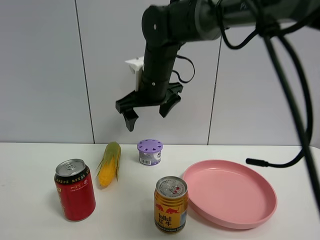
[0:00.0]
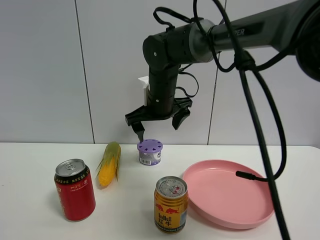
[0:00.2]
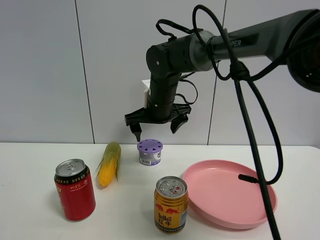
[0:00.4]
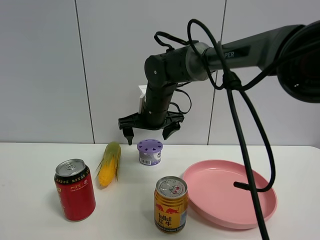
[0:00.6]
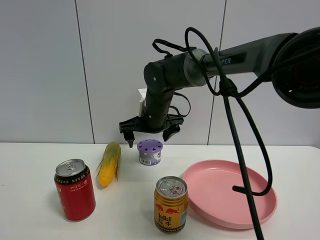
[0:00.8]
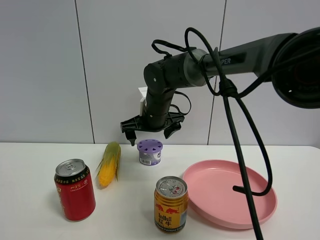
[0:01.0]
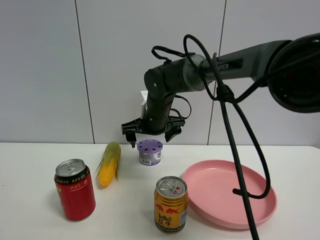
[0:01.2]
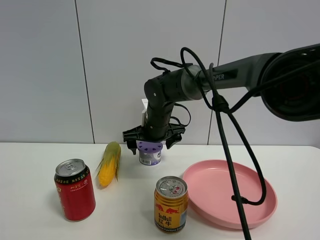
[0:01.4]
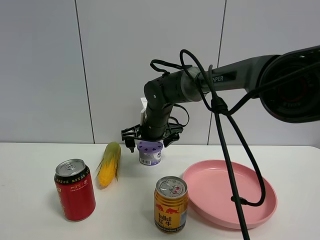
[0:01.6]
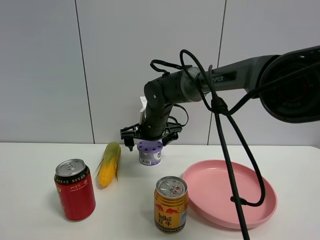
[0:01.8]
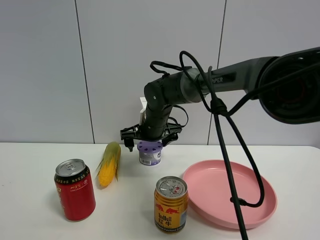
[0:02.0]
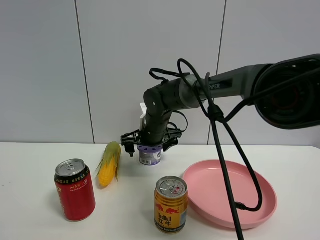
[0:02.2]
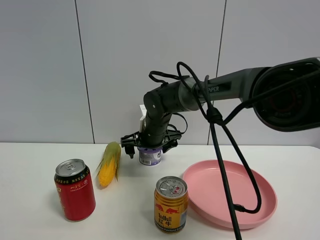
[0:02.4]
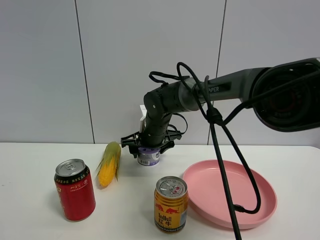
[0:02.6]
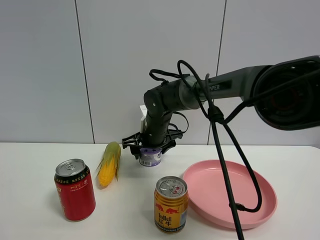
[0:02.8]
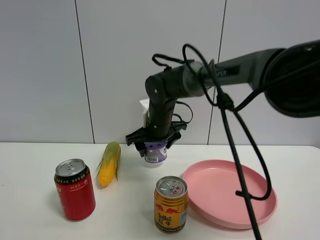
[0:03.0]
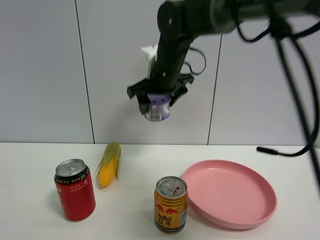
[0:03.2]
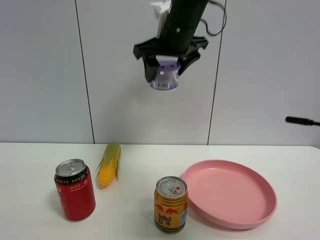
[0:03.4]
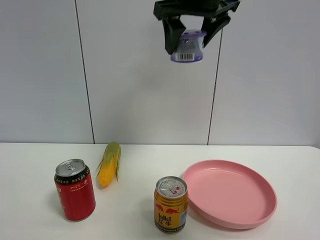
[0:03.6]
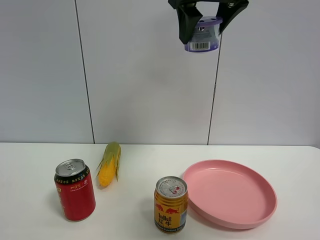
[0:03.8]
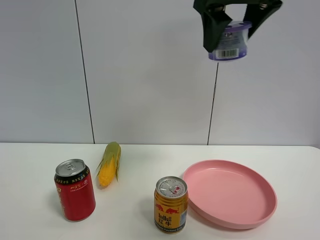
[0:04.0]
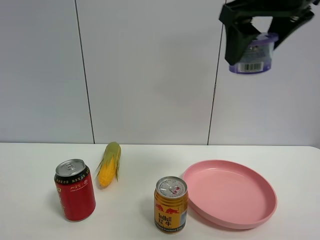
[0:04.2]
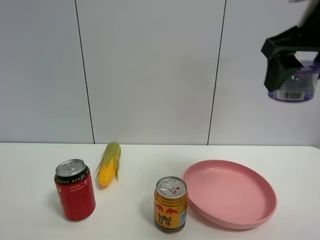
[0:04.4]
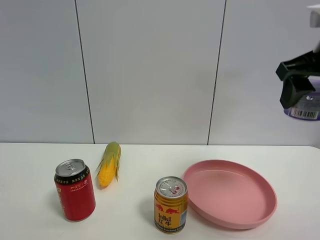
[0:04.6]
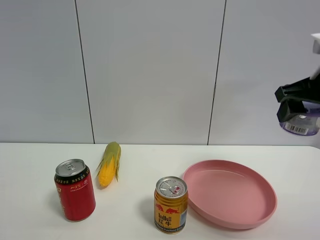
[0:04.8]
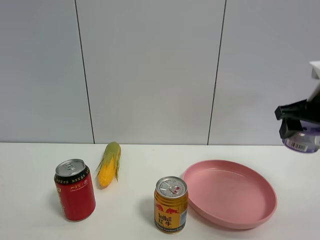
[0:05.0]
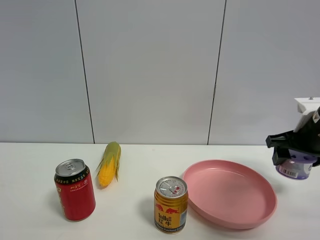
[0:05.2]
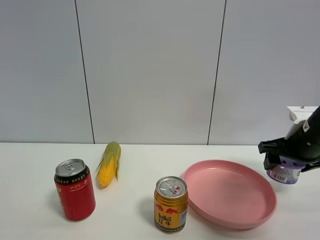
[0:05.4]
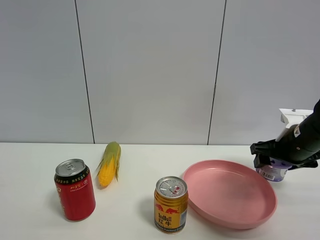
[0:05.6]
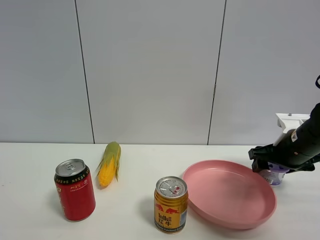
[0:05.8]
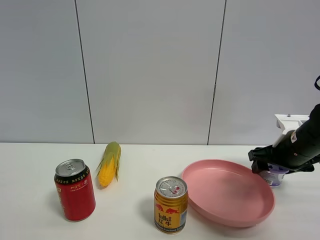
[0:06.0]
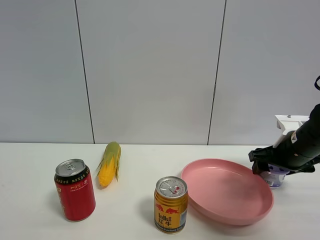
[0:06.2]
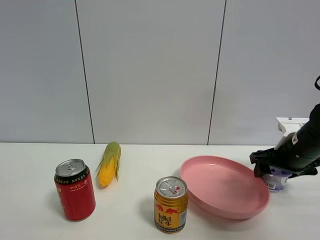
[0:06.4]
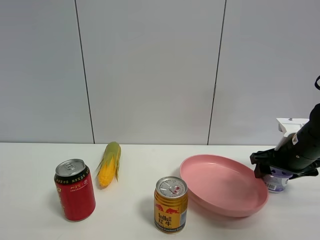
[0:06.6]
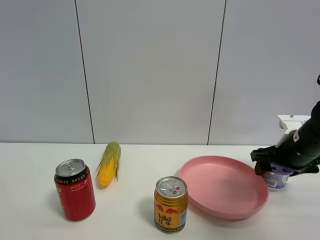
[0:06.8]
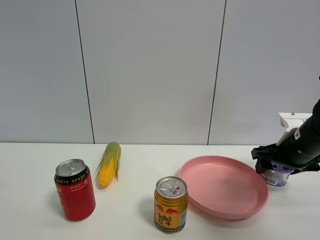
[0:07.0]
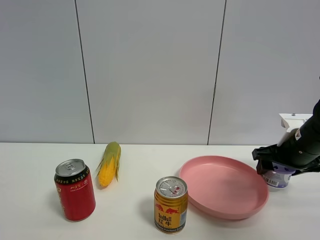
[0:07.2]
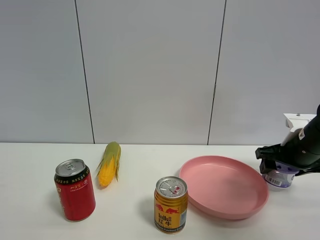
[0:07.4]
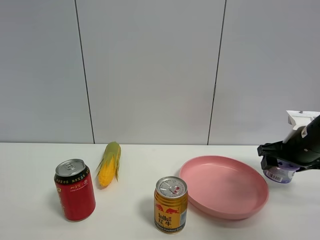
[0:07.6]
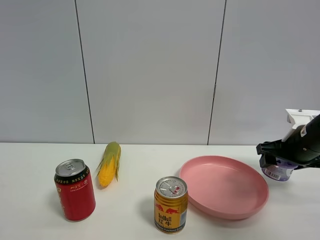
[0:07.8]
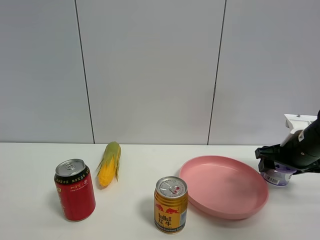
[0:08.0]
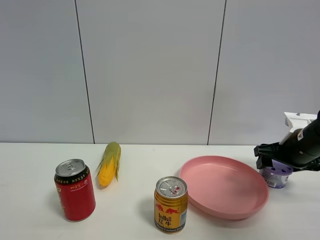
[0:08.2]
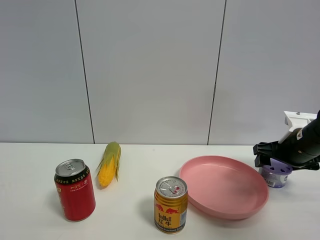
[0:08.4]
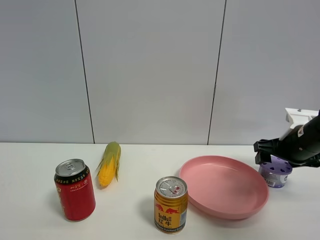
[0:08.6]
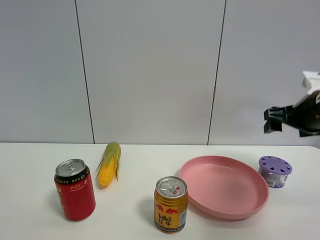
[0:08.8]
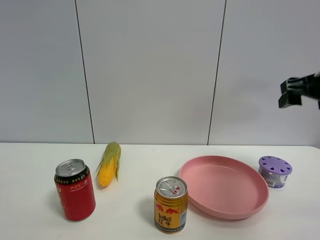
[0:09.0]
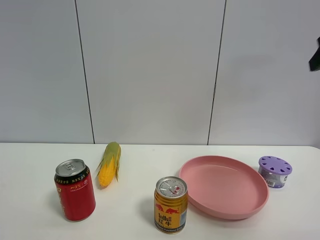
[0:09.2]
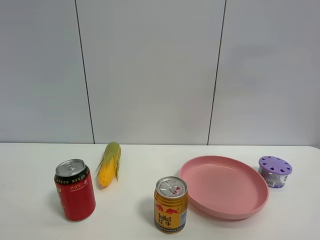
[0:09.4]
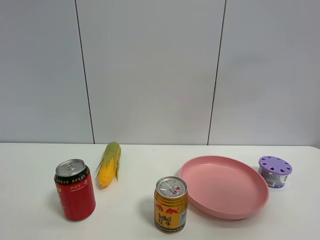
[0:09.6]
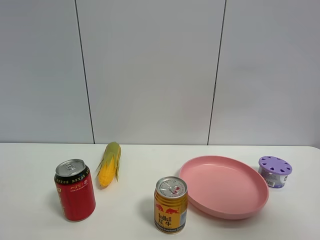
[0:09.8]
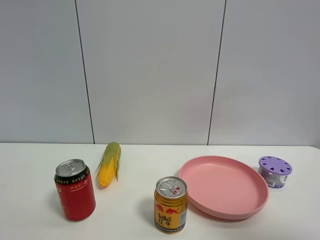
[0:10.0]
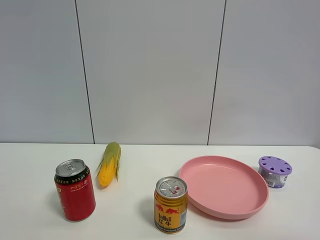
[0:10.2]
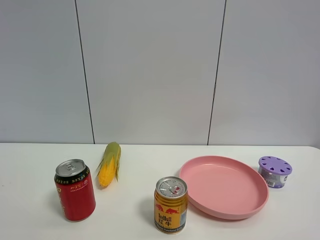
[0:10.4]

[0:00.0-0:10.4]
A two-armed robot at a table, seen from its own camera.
Task of the whole recording: the gripper move the object.
0:00.0 to 0:01.4: The right gripper shifts some 10 cm downward.
0:01.4 to 0:03.0: The right gripper closes.
0:03.0 to 0:04.4: The right gripper heads to the right, upward and backward, covering approximately 35 cm.
0:04.4 to 0:06.0: The right gripper moves downward and forward, roughly 25 cm.
0:06.0 to 0:07.4: There are only small adjustments of the grippers.
0:07.4 to 0:09.0: The right gripper goes approximately 15 cm upward.
0:09.0 to 0:10.4: The right gripper shifts about 30 cm backward.

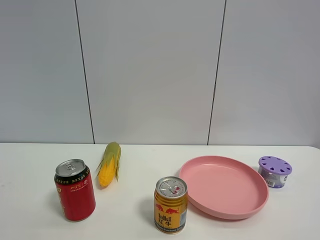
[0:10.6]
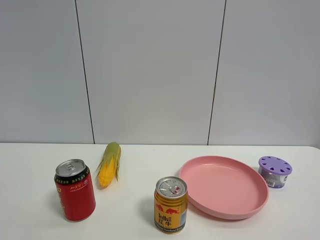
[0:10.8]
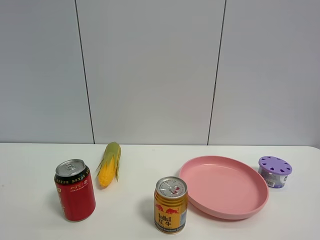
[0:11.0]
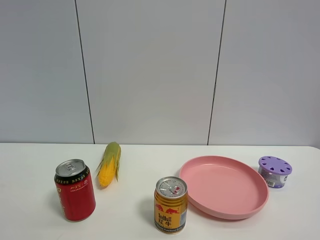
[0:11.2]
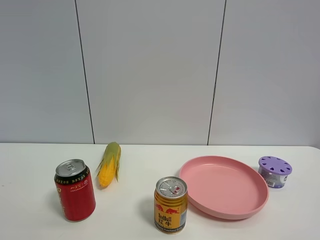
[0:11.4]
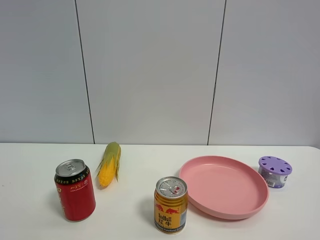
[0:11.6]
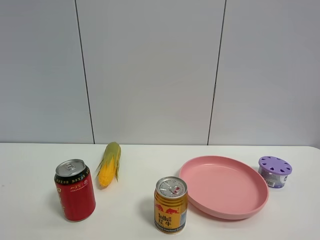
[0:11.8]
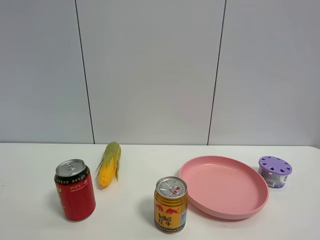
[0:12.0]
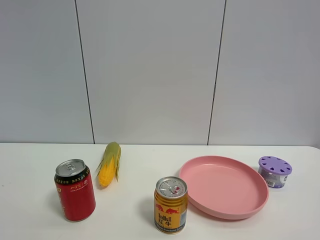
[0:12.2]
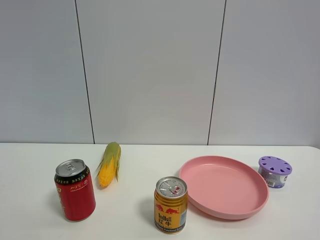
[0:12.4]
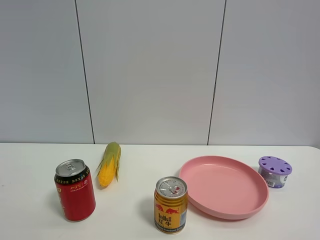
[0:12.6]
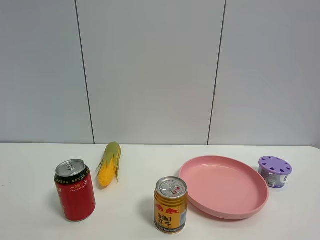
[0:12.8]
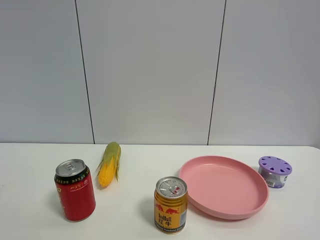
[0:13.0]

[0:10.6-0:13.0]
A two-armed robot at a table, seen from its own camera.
Task of the whole recording: the gripper move the object.
0:11.8 to 0:13.0: Both grippers stay put.

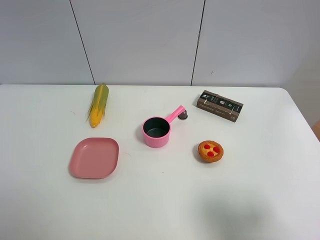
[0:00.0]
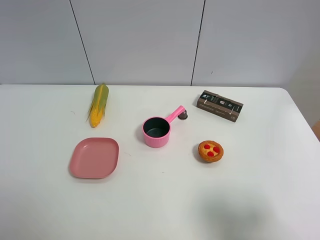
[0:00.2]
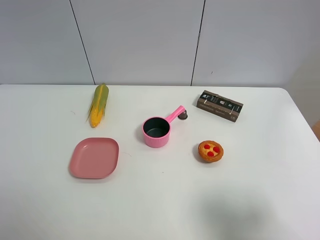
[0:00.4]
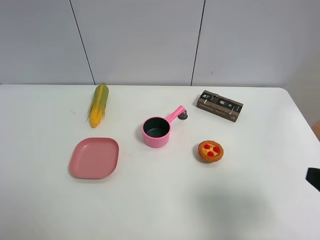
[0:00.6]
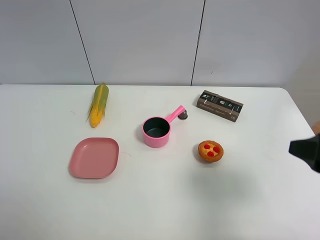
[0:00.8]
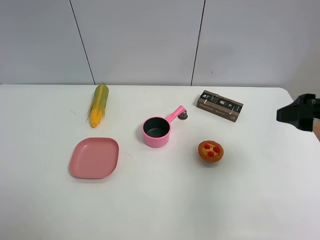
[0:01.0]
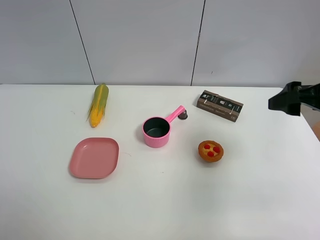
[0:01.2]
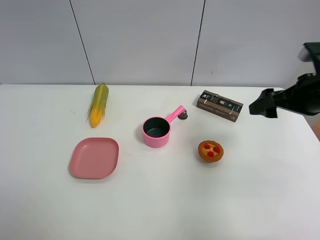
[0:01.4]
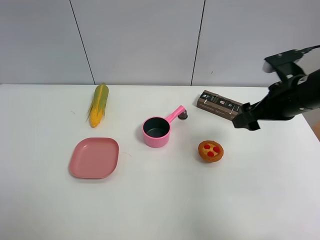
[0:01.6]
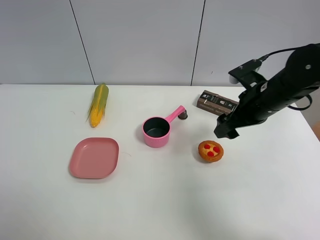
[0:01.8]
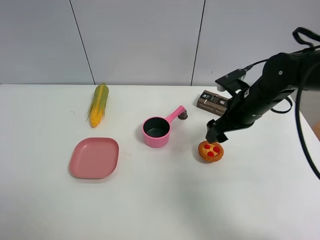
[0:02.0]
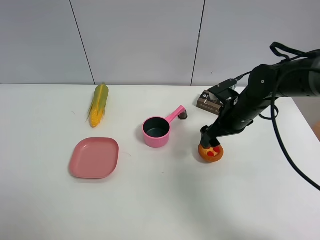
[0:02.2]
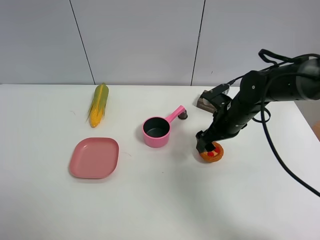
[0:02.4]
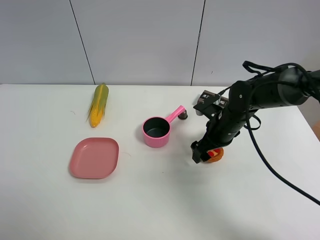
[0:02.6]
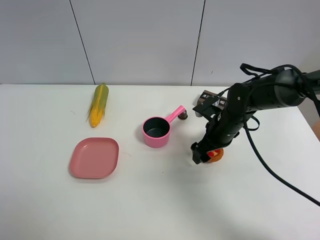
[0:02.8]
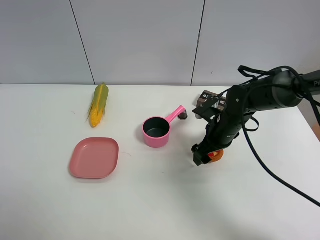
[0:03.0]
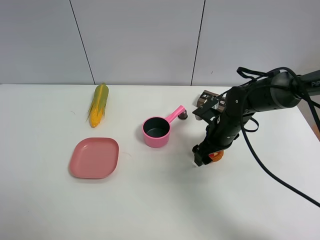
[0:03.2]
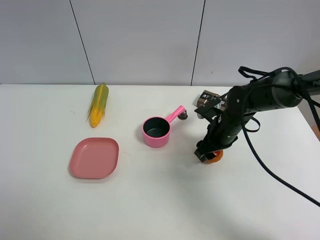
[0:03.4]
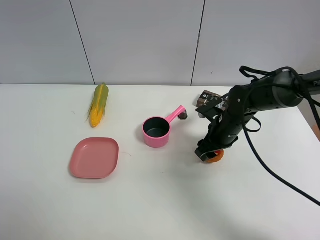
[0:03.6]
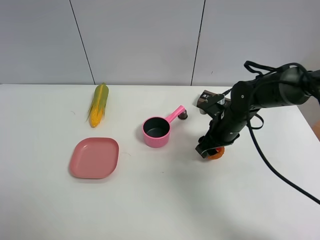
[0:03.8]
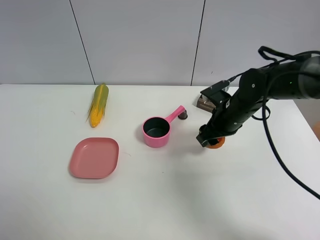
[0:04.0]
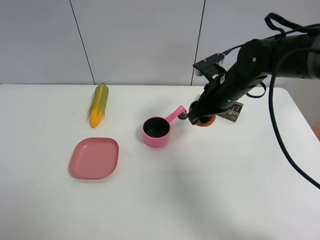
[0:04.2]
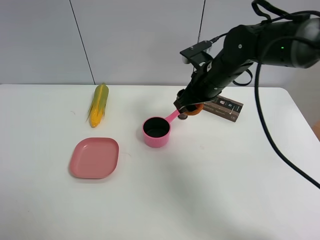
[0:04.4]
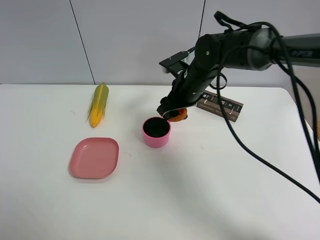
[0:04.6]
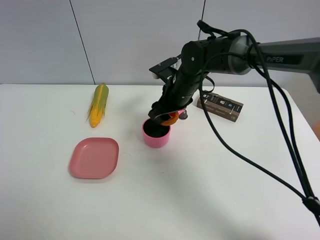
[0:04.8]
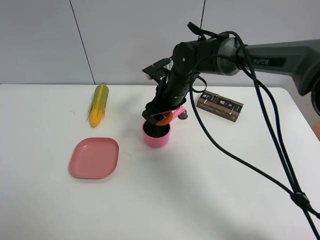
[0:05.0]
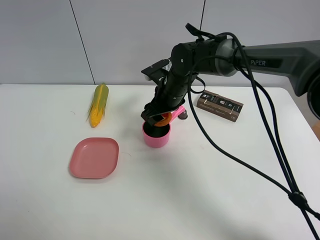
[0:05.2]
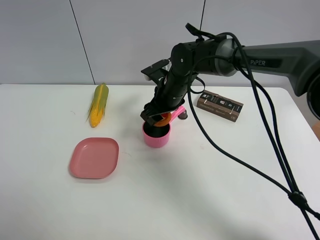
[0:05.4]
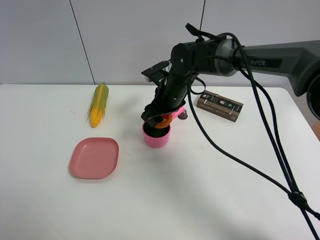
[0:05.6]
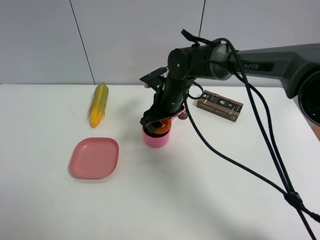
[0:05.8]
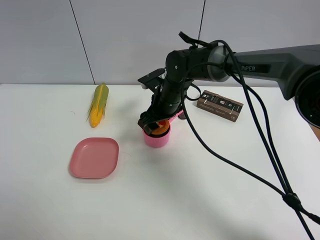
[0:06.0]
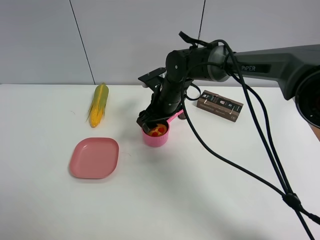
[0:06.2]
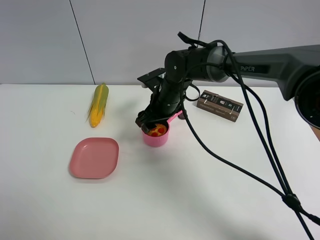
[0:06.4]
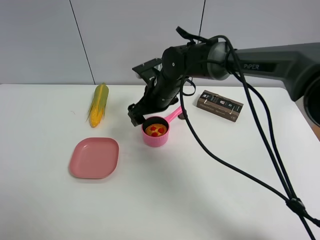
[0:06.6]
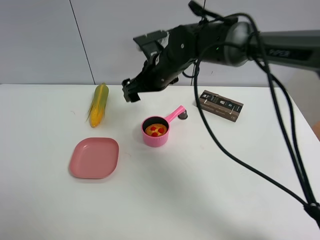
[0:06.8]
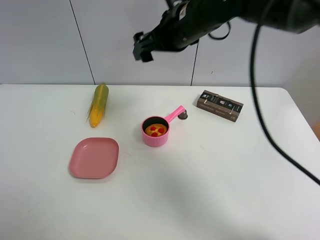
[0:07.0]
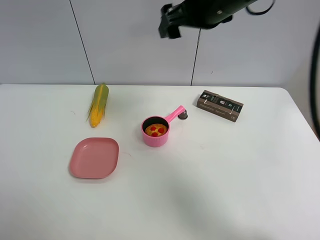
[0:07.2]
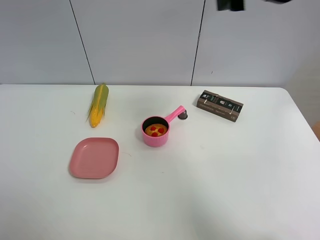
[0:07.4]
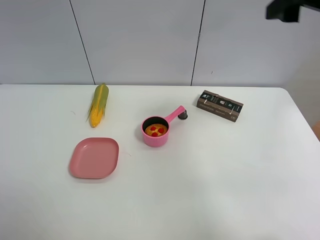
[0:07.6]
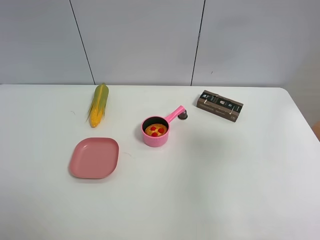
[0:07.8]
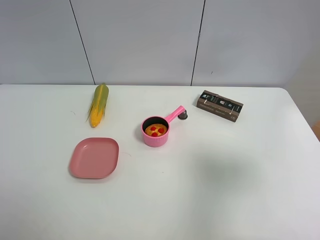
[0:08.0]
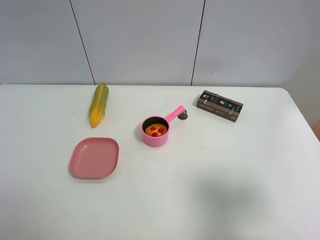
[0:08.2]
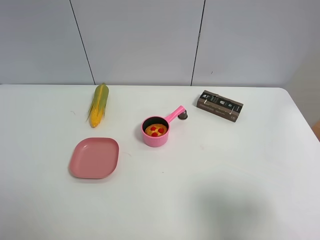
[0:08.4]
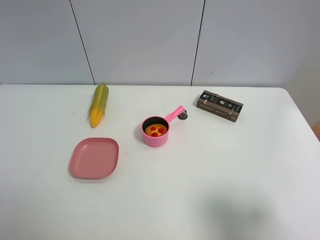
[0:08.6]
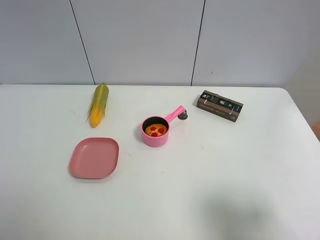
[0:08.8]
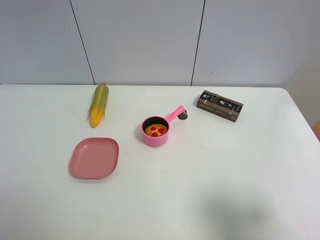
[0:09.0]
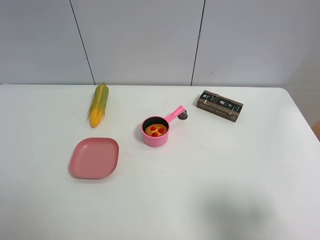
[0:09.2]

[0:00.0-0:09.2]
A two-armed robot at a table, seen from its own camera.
Task of the whole recording: the gripper move the object.
Step, 0:00.0 to 0:03.4: Grasp the egg tart with the right gripper.
Step, 0:03.6 to 0:06.4: Place the egg tart into the pink pot with the right gripper.
0:00.0 to 0:01.6: The right gripper moves forward, roughly 25 cm.
0:01.6 to 0:03.0: The right gripper moves downward and to the left, approximately 15 cm.
0:03.0 to 0:04.6: The right gripper moves to the left, upward and forward, some 15 cm, and closes its fingers.
0:04.6 to 0:06.2: The right gripper moves roughly 5 cm.
0:06.2 to 0:07.6: The right gripper goes about 35 cm upward, to the right and backward, and opens.
0:07.6 to 0:09.2: The right gripper shifts about 25 cm backward and downward.
